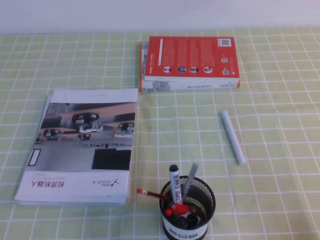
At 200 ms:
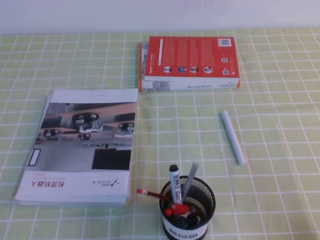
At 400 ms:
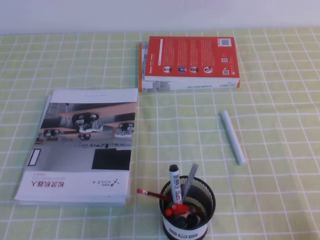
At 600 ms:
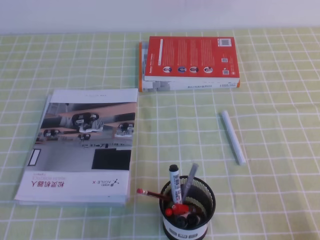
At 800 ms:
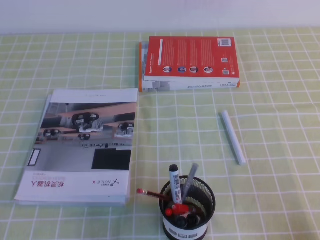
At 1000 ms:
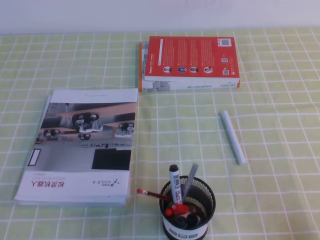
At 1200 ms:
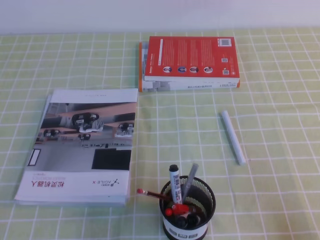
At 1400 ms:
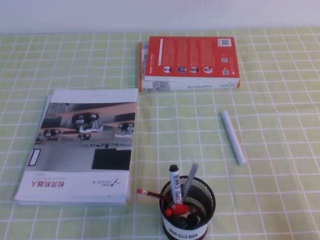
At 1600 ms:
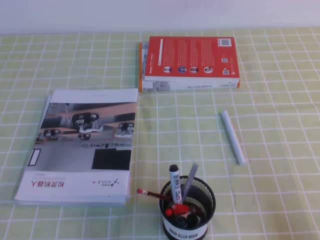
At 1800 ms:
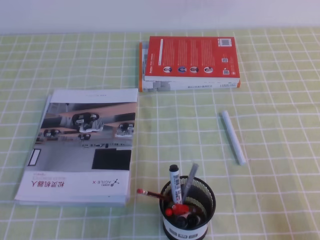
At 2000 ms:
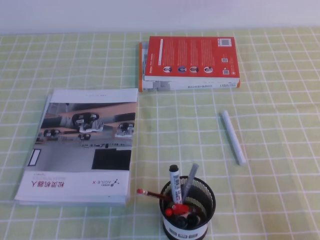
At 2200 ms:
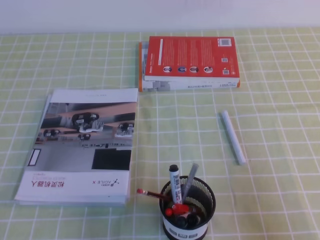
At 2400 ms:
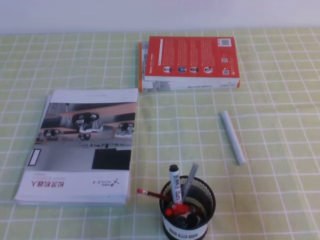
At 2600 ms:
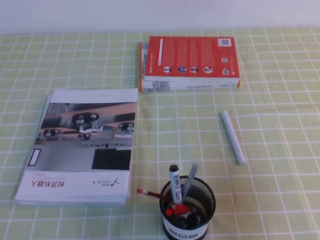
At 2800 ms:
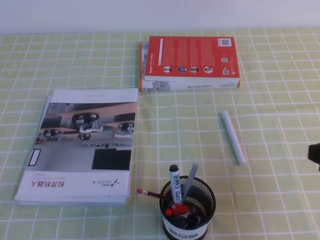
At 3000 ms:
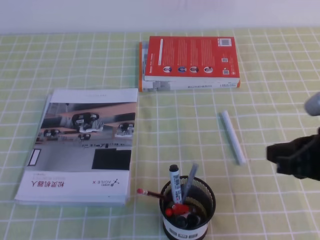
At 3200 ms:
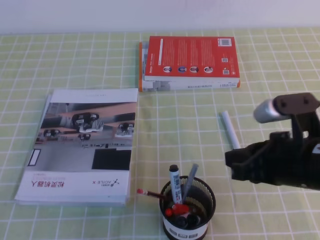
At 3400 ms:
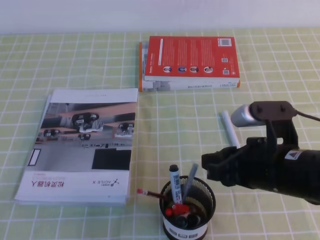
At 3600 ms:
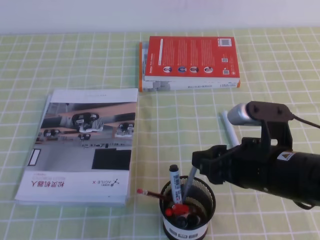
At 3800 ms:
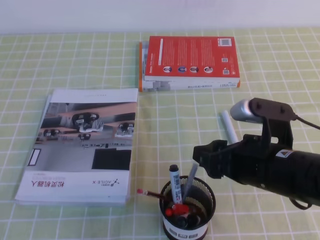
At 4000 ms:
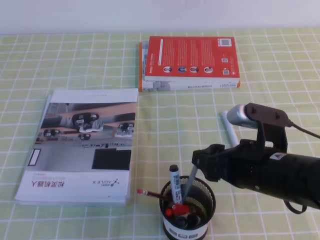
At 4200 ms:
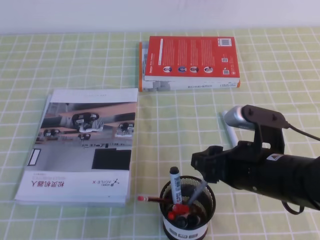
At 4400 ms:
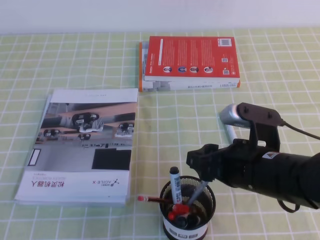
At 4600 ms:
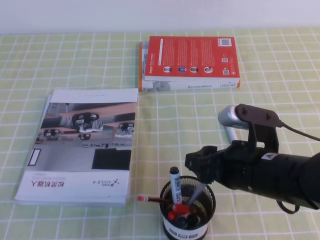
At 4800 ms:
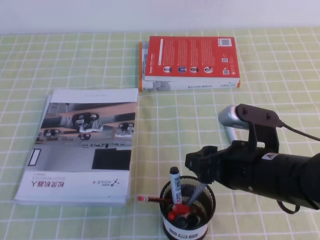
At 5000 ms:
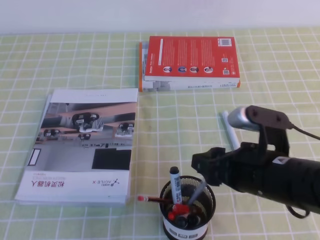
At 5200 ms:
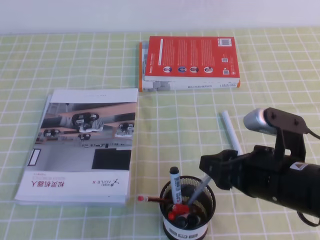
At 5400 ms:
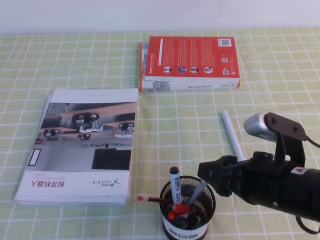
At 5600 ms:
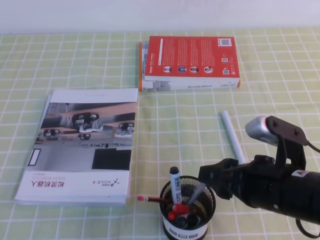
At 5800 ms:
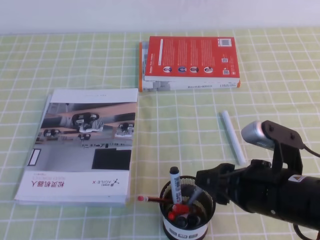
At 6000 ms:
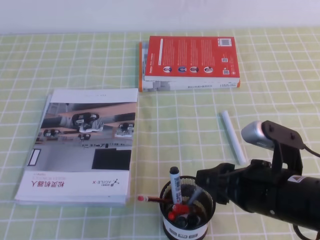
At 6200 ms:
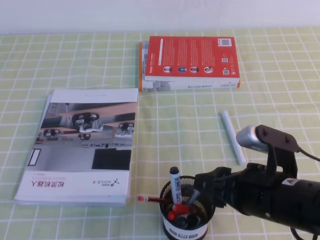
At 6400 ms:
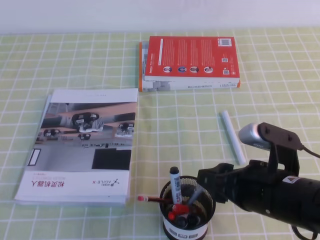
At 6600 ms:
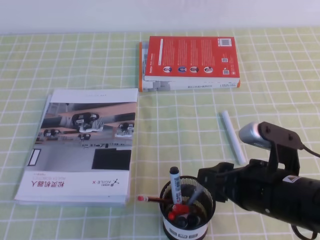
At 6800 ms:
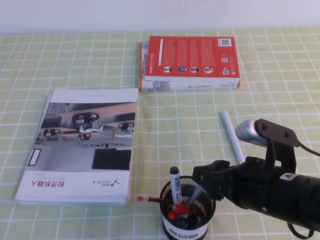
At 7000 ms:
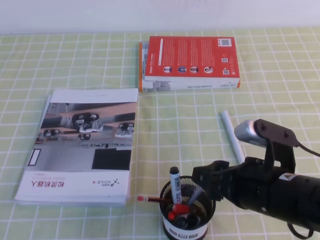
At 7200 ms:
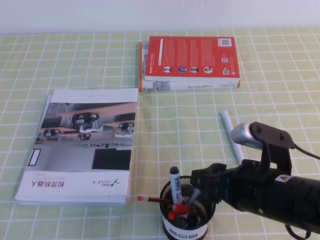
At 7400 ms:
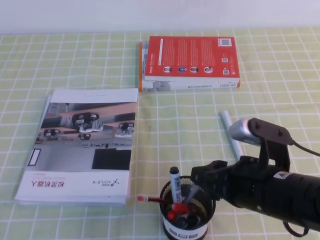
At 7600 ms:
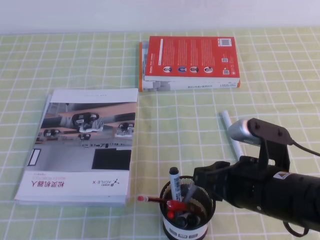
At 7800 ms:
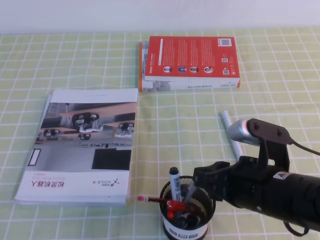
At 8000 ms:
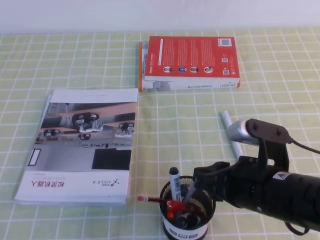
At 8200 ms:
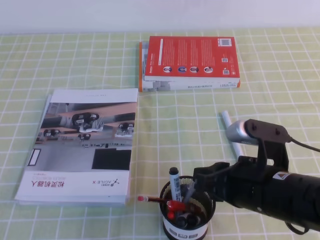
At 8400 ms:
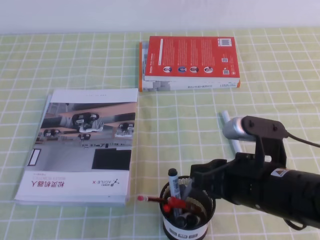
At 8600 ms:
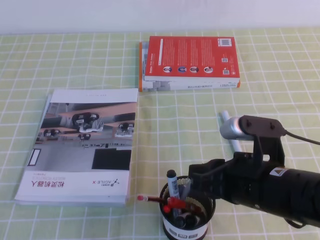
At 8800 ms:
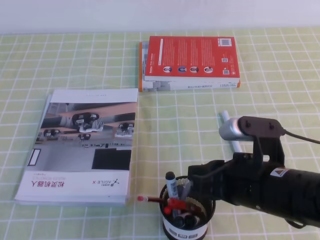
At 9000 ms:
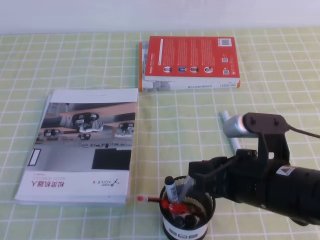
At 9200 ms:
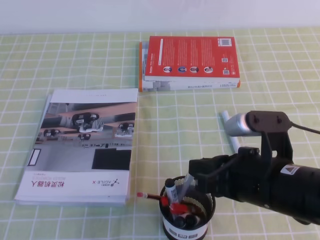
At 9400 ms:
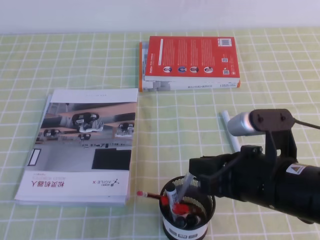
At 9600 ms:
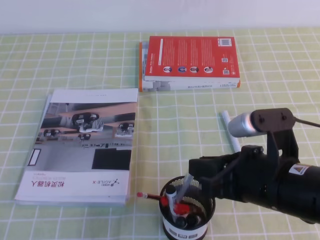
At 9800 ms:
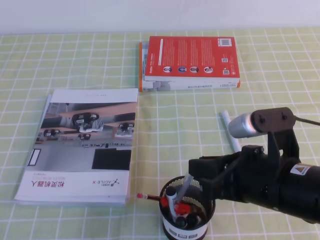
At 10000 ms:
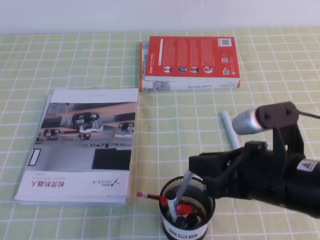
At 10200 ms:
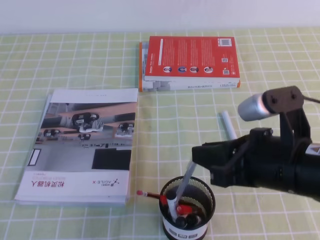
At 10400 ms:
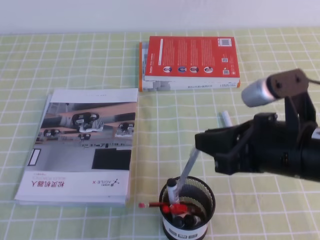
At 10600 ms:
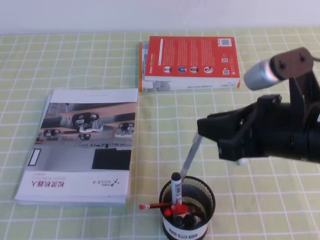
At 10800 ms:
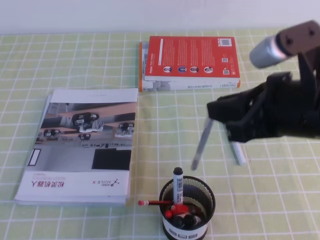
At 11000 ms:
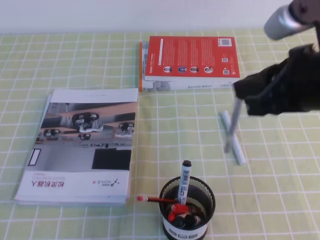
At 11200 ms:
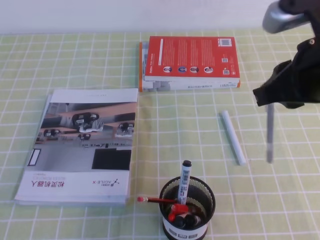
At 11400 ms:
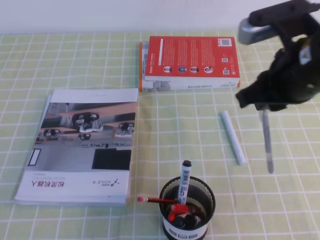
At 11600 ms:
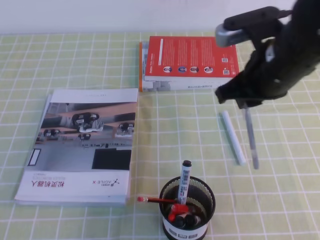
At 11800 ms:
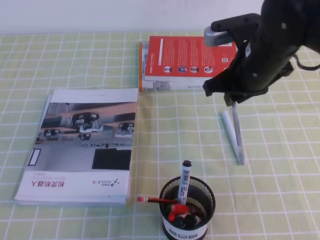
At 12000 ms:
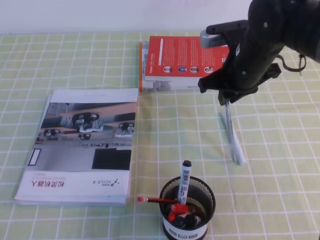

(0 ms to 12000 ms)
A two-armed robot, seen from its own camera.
1600 ms - 3000 ms: The right gripper heads forward, upward and to the left, covering approximately 15 cm.
3000 ms - 4400 ms: The right gripper travels to the left by about 10 cm, and opens its fingers.
4400 ms - 6000 ms: The grippers move only a little.
6000 ms - 7600 ms: The right gripper closes up.
7600 ms - 9000 ms: The grippers make only small movements.
9000 ms - 10400 ms: The right gripper is displaced upward by roughly 5 cm.
10400 ms - 12000 ms: The right gripper shifts some 20 cm forward.

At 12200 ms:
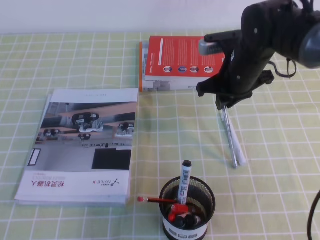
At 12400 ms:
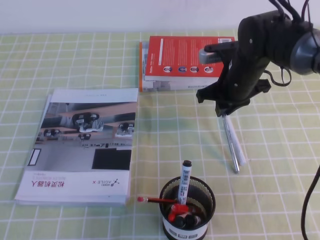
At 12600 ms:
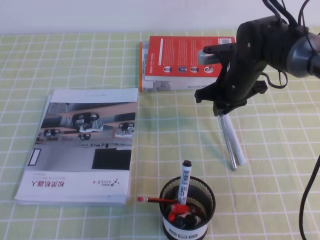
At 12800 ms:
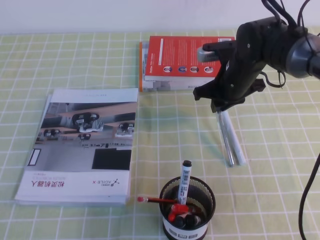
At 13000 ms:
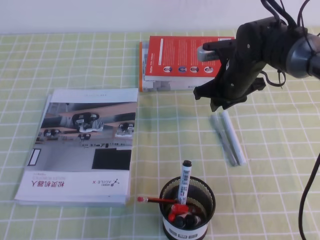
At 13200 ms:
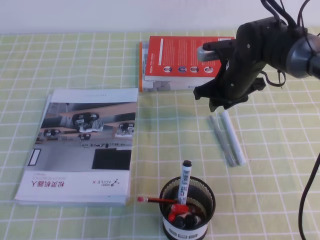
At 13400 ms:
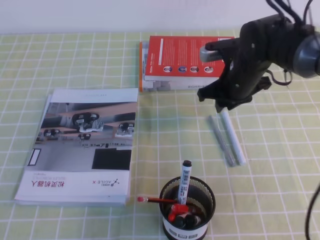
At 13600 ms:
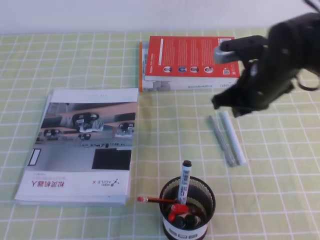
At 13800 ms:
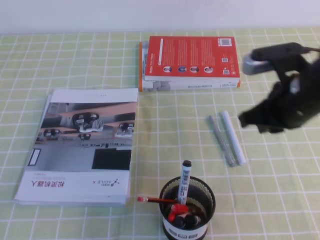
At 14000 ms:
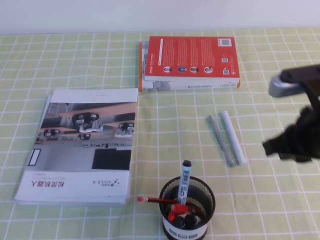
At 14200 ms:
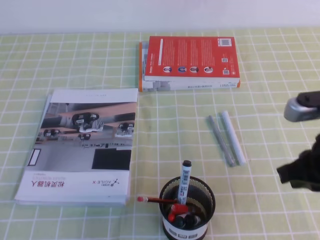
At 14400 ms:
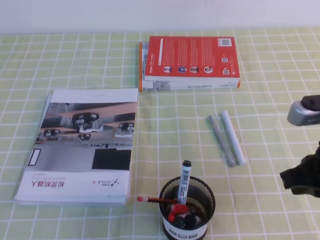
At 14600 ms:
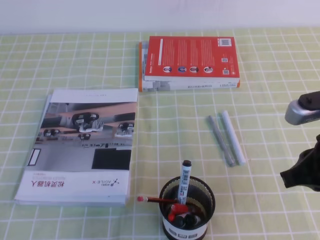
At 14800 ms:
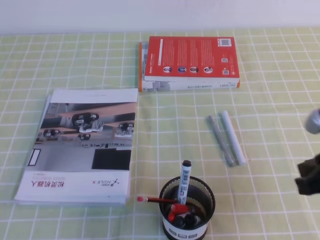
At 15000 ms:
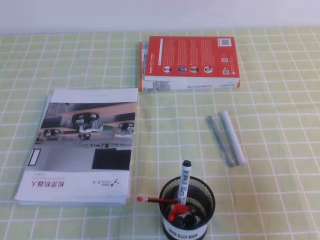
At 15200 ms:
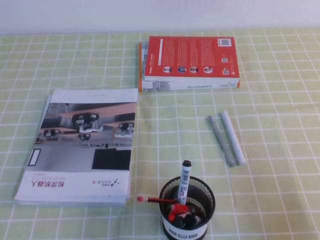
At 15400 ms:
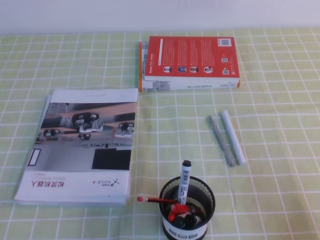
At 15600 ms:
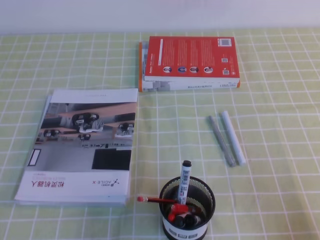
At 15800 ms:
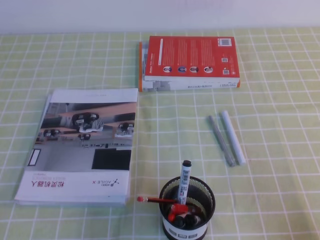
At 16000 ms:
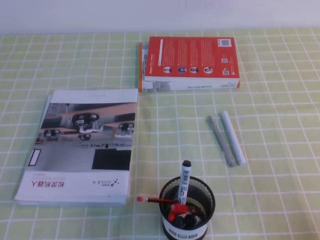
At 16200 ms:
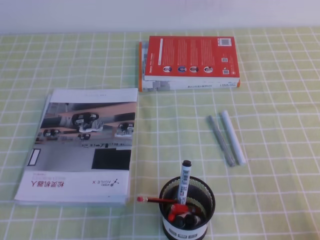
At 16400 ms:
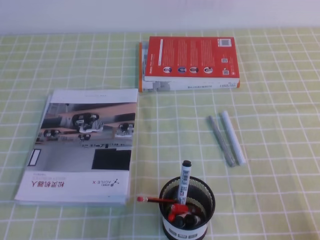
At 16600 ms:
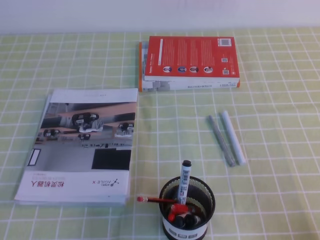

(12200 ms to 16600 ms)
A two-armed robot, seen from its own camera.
Step, 12200 ms - 16600 ms: Pick up the pen from the pen holder.
12200 ms - 13600 ms: There are only small adjustments of the grippers.
13600 ms - 15200 ms: The right gripper shifts roughly 30 cm backward and to the right.
